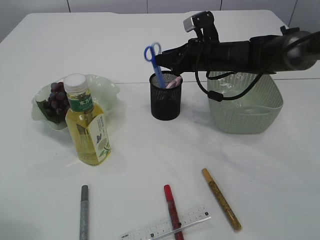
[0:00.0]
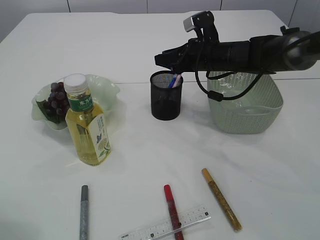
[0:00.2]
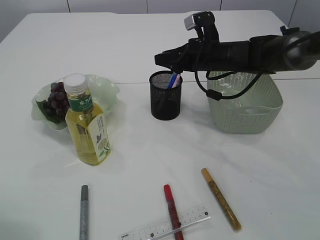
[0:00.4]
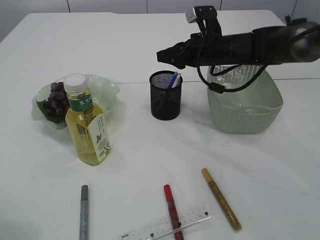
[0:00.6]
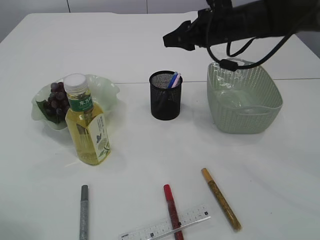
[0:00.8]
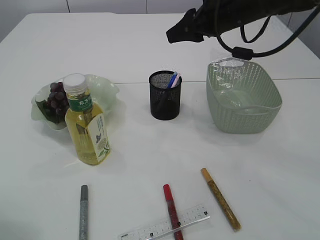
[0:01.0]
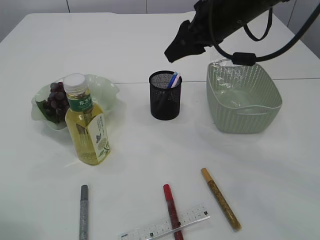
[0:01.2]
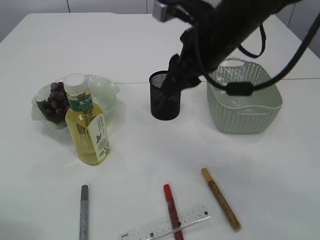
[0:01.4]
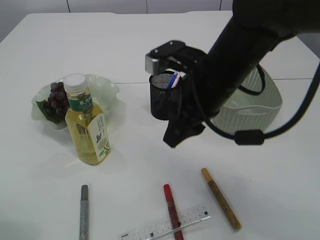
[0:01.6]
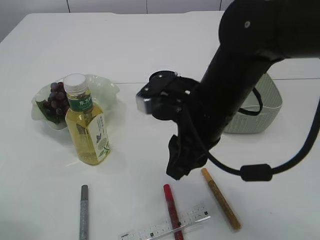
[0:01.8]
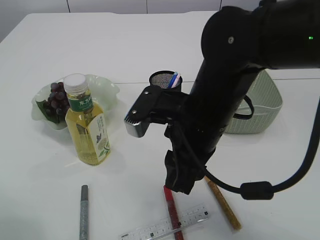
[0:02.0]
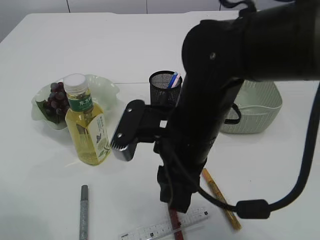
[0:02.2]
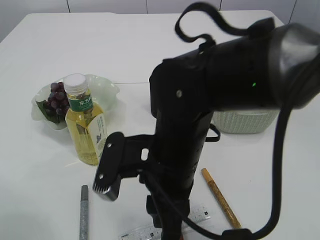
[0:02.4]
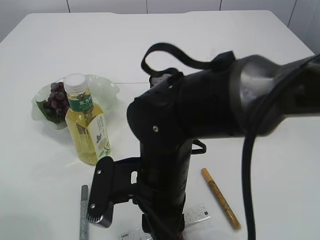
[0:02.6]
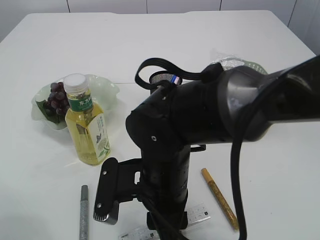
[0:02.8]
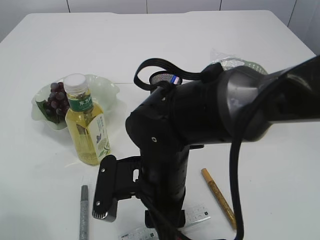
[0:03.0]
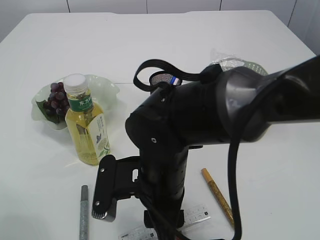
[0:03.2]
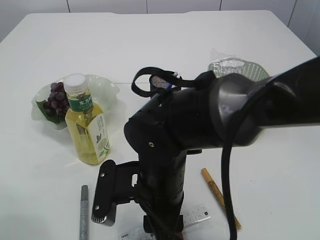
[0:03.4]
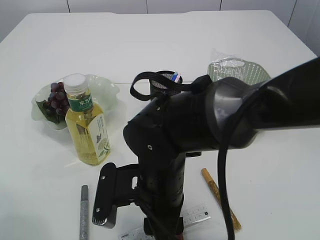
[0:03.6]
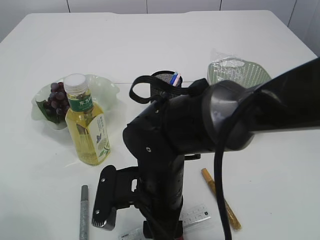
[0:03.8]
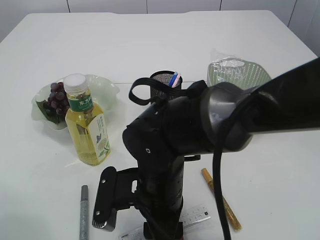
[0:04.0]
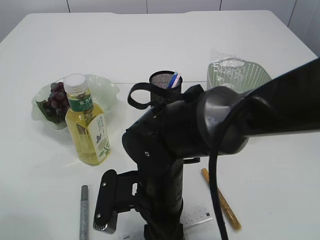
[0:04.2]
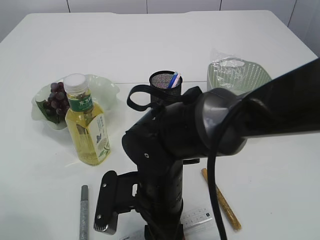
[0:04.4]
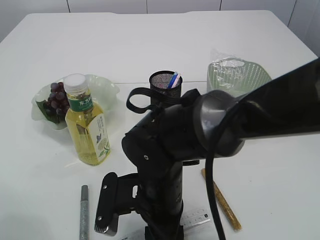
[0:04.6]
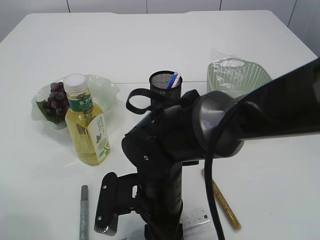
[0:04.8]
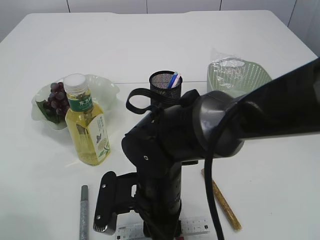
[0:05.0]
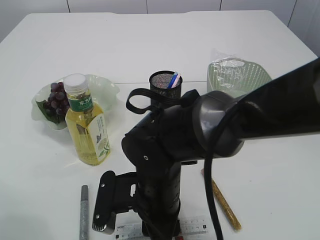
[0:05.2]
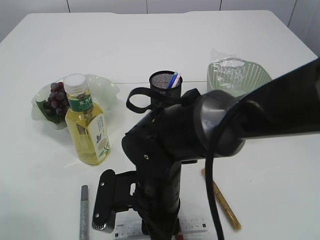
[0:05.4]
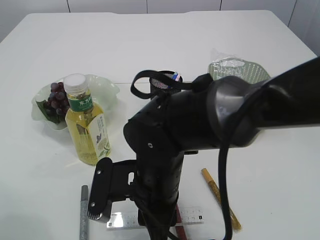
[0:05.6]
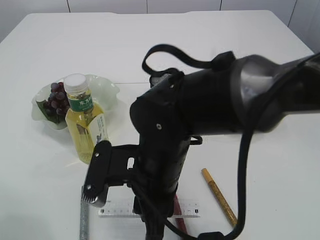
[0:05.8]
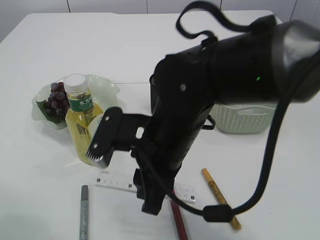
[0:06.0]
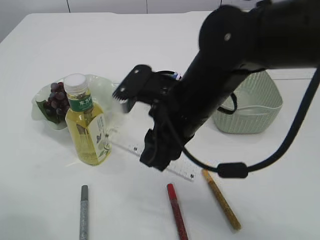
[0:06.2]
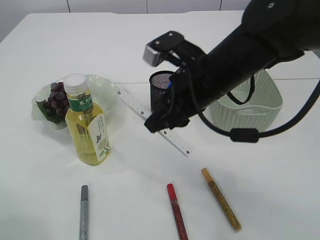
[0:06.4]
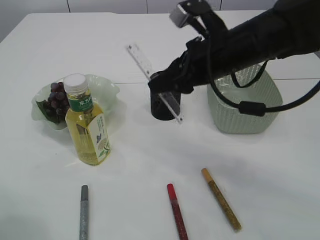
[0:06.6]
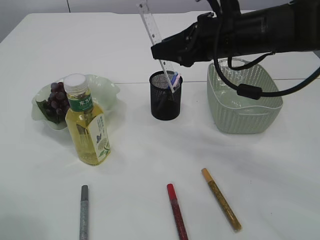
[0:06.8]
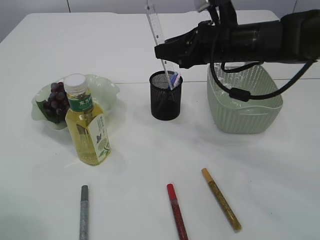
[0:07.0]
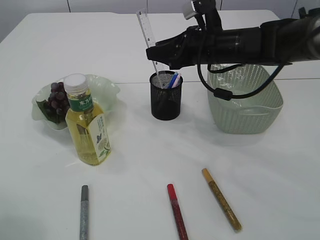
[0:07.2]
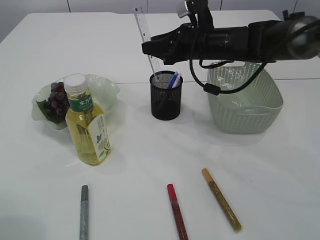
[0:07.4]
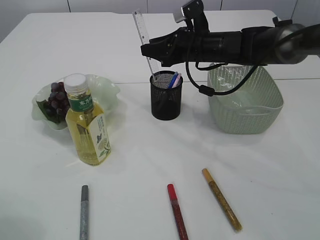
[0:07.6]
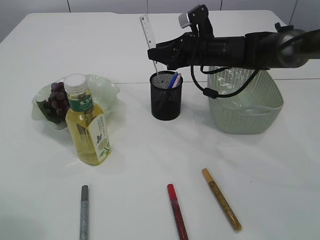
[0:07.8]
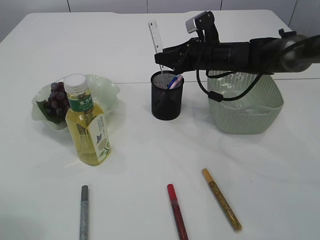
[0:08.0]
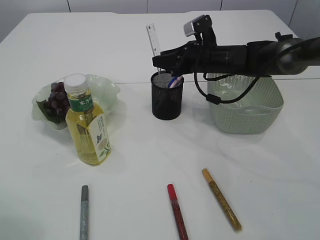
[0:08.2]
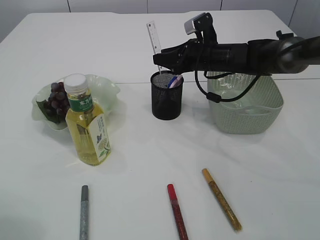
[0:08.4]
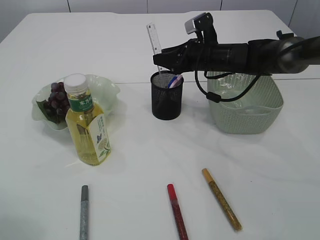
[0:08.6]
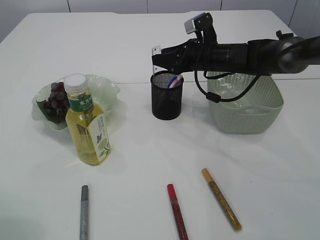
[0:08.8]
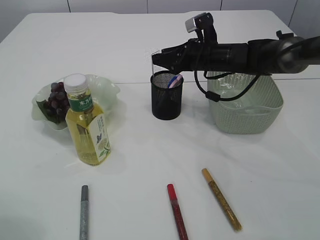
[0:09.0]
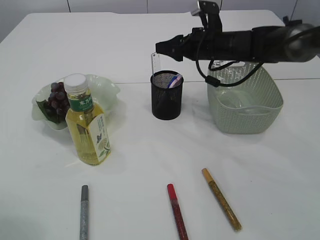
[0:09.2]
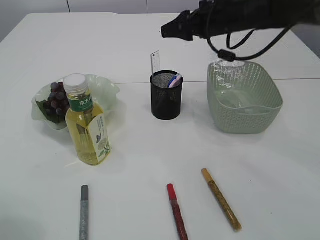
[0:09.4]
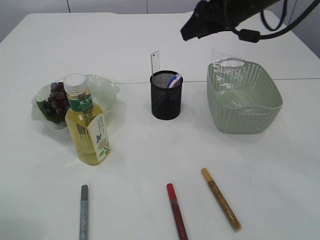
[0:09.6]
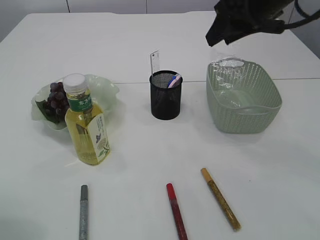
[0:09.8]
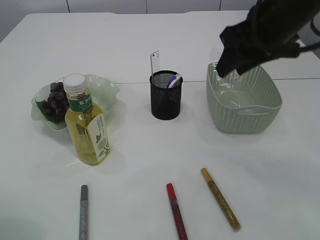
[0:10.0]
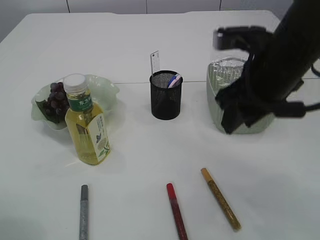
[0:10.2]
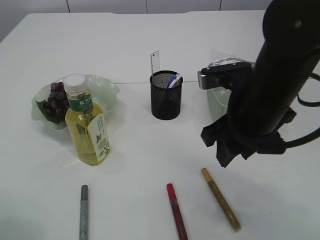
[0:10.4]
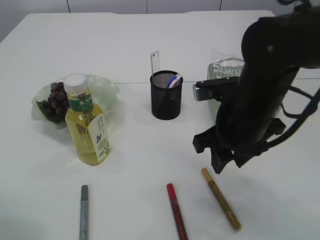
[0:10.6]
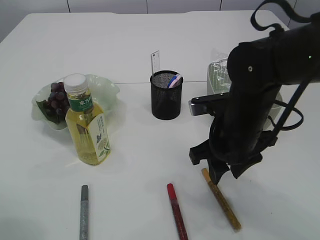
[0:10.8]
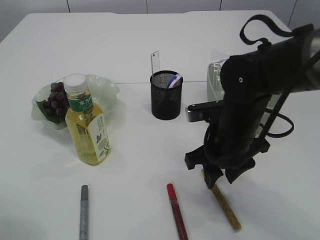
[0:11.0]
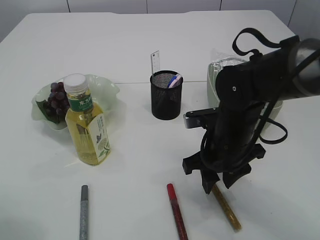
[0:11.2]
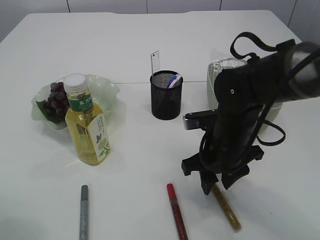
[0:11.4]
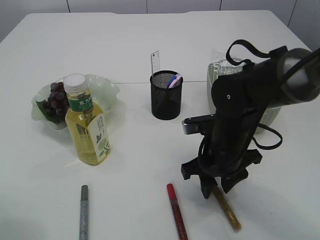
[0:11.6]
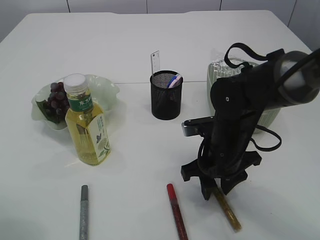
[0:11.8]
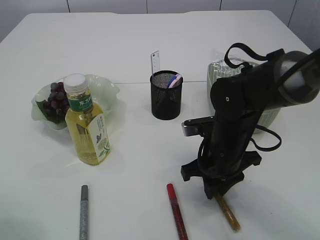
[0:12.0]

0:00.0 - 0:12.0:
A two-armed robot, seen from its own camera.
Step, 0:00.8 - 0:06.0: pick up the ruler.
Step, 0:06.2 - 0:09.4: Place the ruler into the pen holder.
0:00.0 - 0:01.6: The right gripper shifts approximately 15 cm backward.
0:01.6 - 0:03.0: The right gripper is displaced downward, to the left and backward by approximately 15 cm.
0:03.0 - 0:04.4: There are only small adjustments of the grippers.
0:04.4 - 0:06.0: The right gripper moves upward, some 5 cm.
0:06.0 - 0:07.6: The right gripper heads forward and to the right, covering about 25 cm.
0:07.6 - 0:09.0: The grippers stay close to where they were, moving slightly.
0:09.0 - 0:10.4: The right gripper is displaced backward by roughly 20 cm.
0:10.4 - 0:12.0: The right gripper moves downward, some 10 cm.

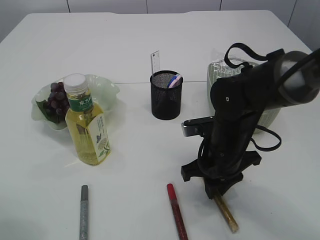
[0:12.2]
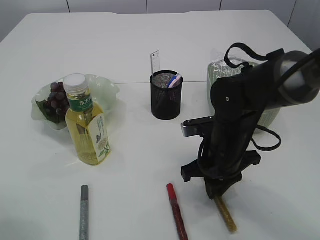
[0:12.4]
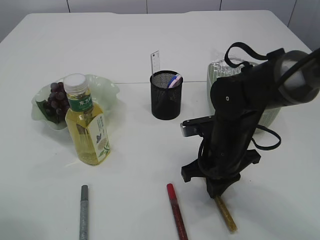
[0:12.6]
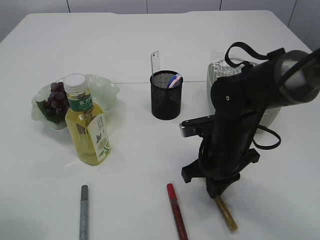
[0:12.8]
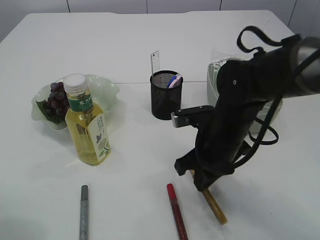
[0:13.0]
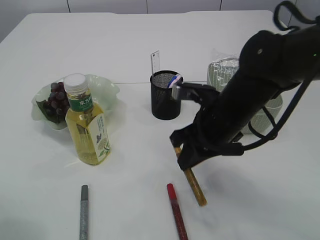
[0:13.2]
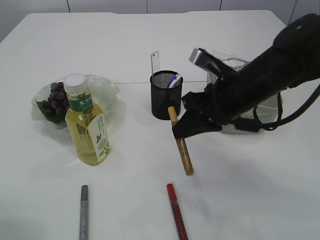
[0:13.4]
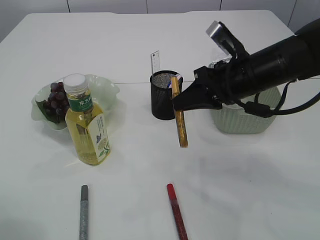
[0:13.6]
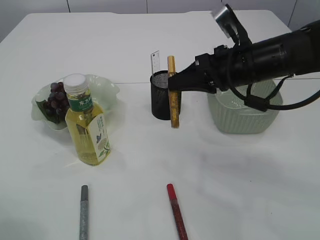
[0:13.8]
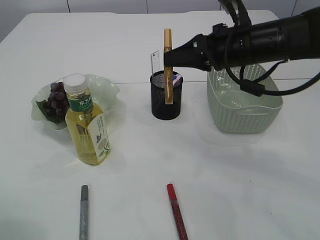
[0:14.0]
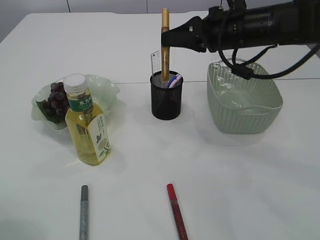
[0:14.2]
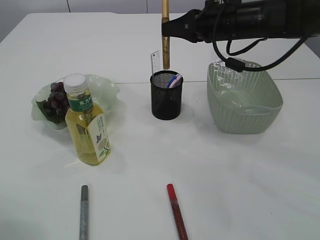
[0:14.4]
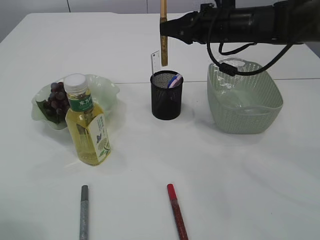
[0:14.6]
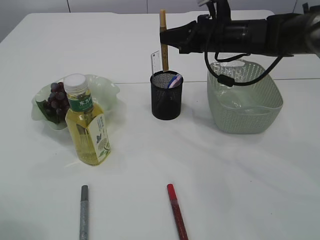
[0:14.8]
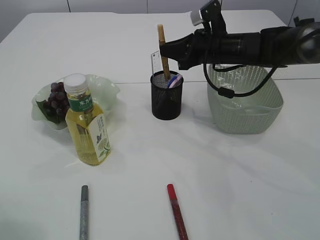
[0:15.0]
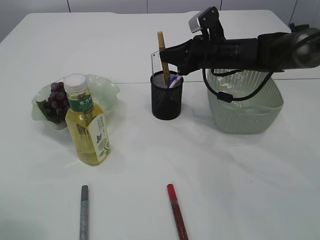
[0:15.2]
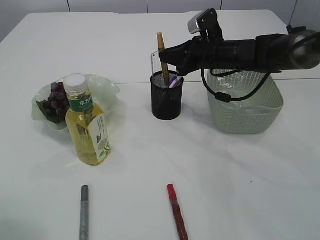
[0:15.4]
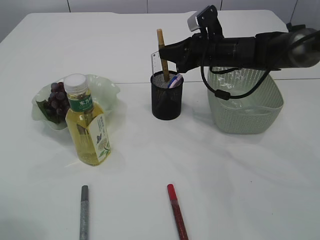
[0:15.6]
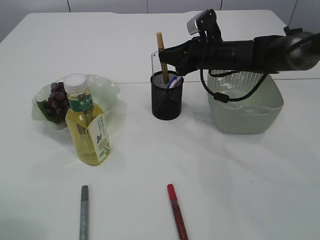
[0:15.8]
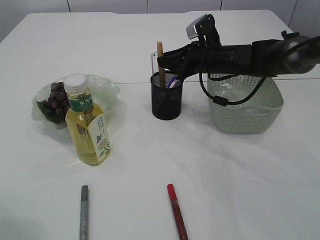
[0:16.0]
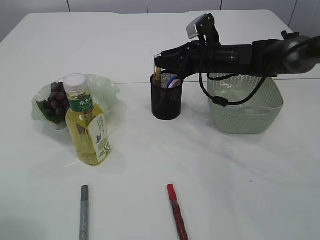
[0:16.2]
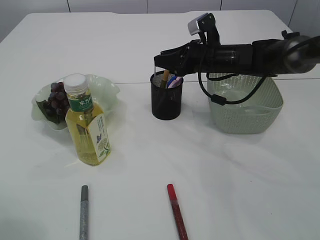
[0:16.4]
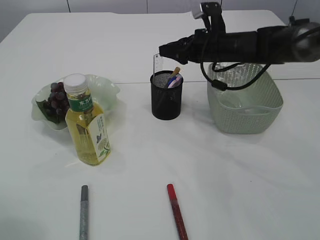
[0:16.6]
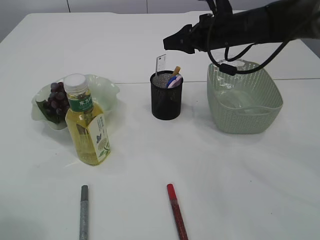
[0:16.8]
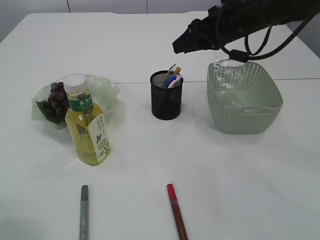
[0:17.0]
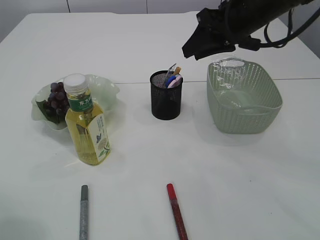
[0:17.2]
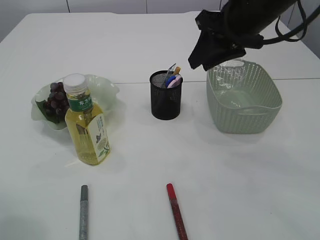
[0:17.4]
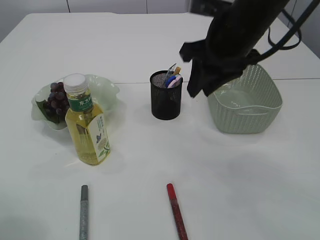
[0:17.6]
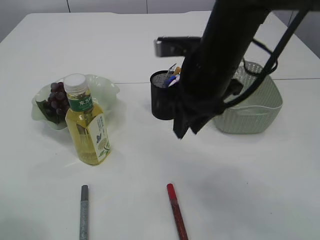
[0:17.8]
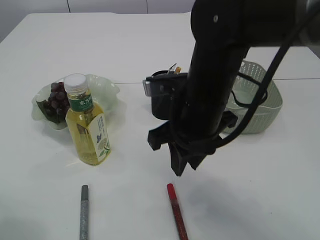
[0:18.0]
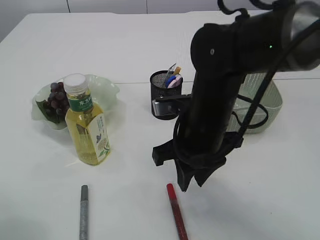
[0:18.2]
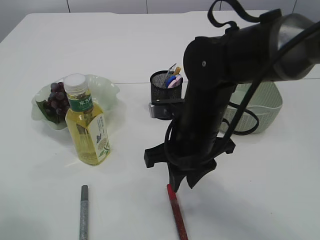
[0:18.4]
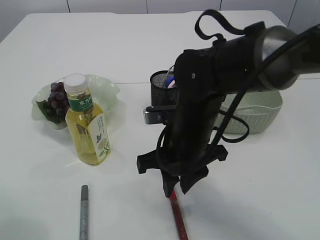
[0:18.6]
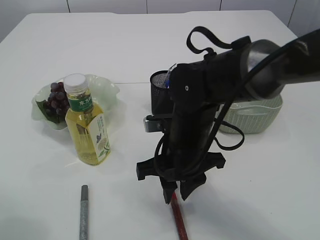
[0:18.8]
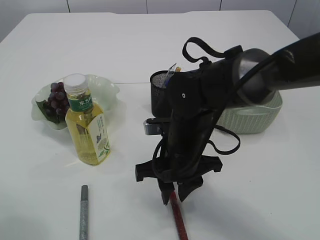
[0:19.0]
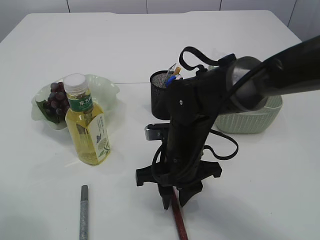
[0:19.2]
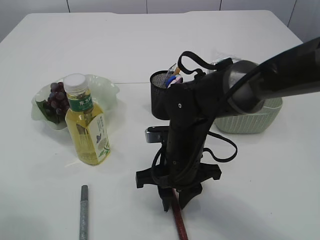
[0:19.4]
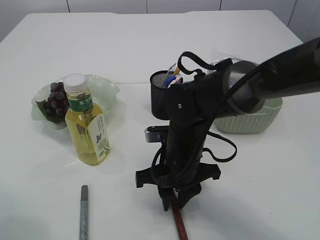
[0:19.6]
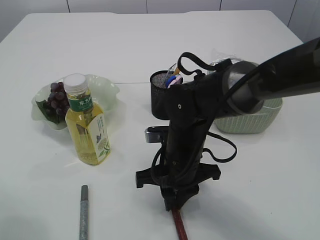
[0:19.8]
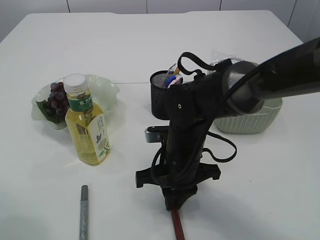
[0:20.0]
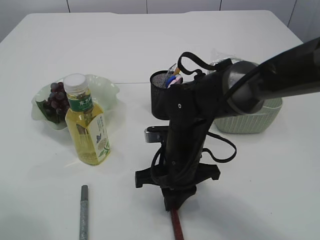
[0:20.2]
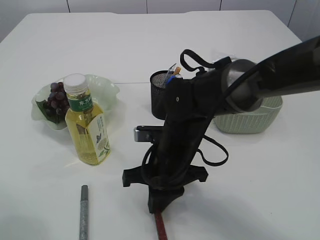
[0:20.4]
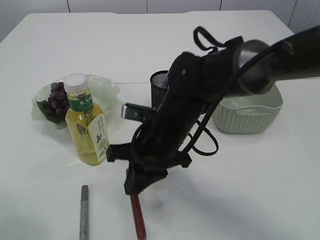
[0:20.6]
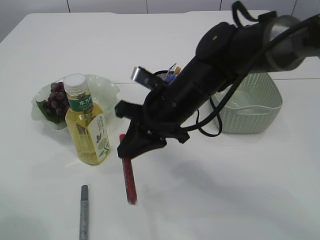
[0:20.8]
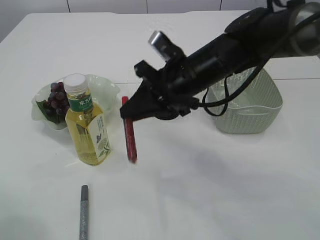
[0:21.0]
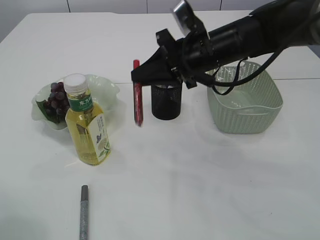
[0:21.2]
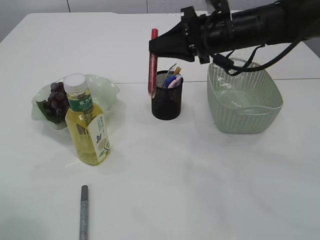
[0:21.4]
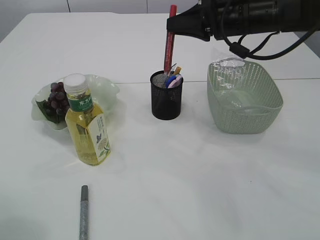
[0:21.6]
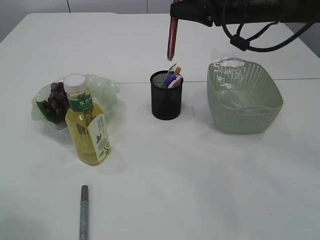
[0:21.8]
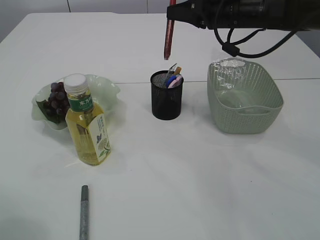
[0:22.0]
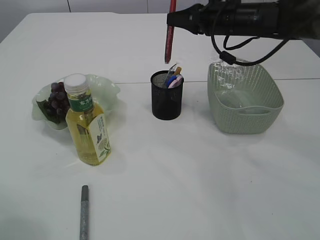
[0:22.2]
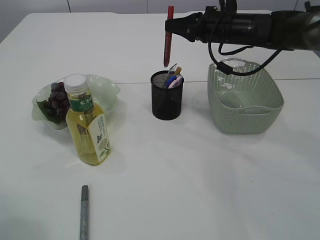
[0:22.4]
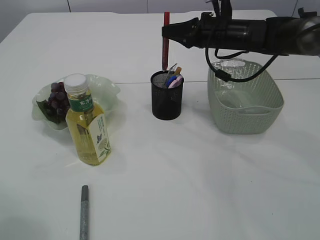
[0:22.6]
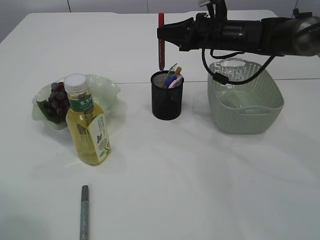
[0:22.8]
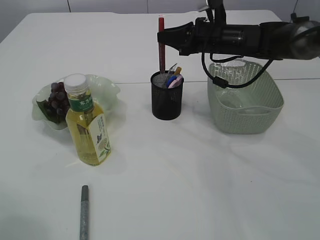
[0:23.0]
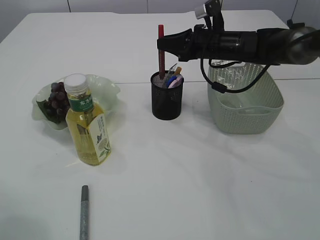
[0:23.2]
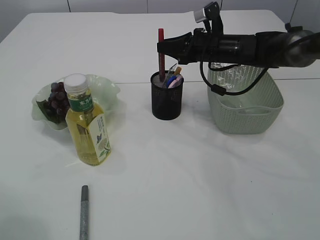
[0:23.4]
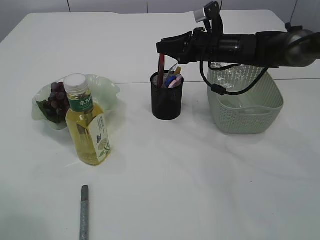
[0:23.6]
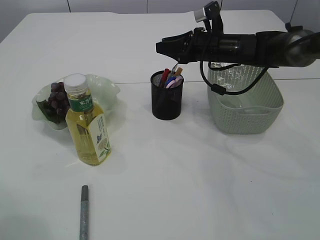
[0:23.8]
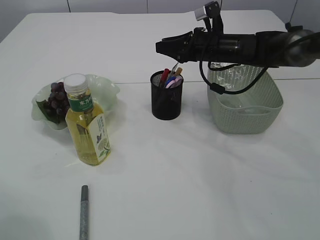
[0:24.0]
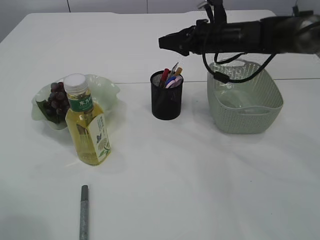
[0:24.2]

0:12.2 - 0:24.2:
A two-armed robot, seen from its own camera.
Step, 0:13.4 - 0:16.8: place the yellow glue into the pen holder.
Step, 0:17.0 - 0:20.8: pick up the red glue.
0:12.2 - 0:13.8: The right gripper shifts roughly 10 cm upward.
0:13.8 - 0:15.2: The right gripper heads forward, covering some 15 cm.
0:15.2 - 0:16.6: The right gripper opens up.
0:16.6 - 0:18.2: The right gripper is displaced backward by about 20 cm.
0:18.2 - 0:19.8: The right gripper moves downward, roughly 10 cm.
0:19.8 - 0:21.2: The right gripper shifts roughly 15 cm upward, forward and to the right.
0:21.2 - 0:22.6: The right gripper is displaced forward and to the right by approximately 15 cm.
0:22.6 - 0:24.2: The grippers move only a little.
